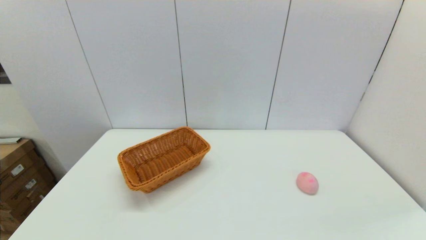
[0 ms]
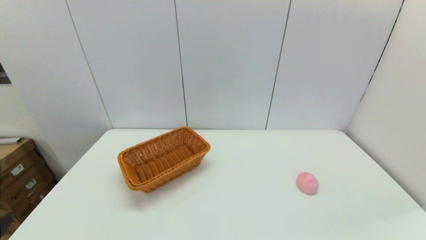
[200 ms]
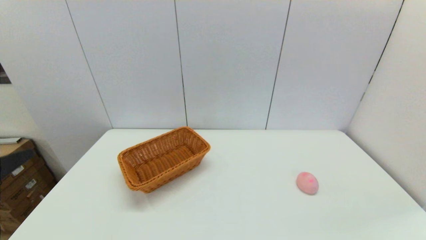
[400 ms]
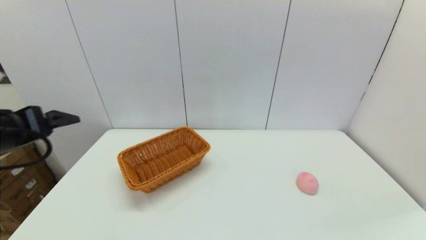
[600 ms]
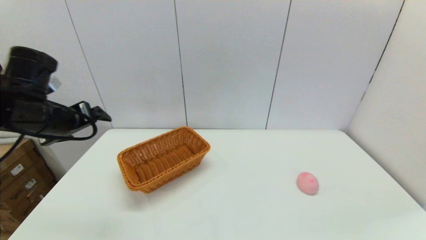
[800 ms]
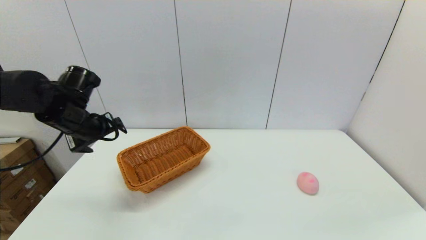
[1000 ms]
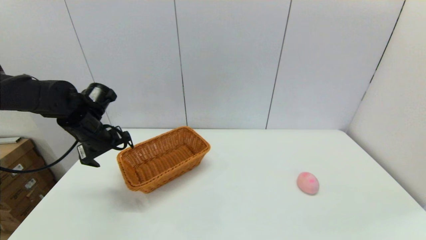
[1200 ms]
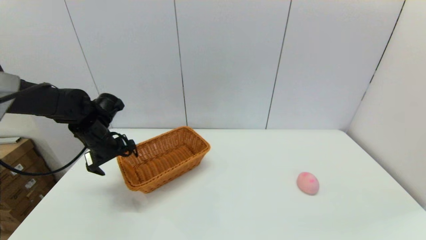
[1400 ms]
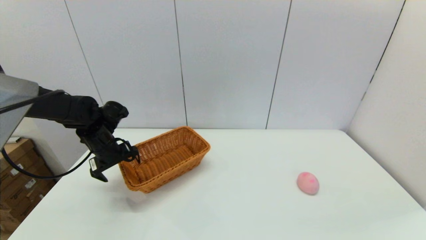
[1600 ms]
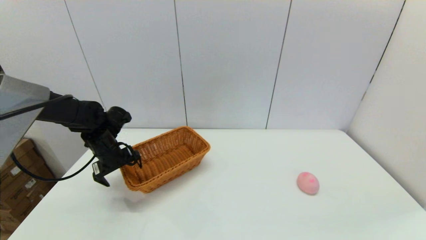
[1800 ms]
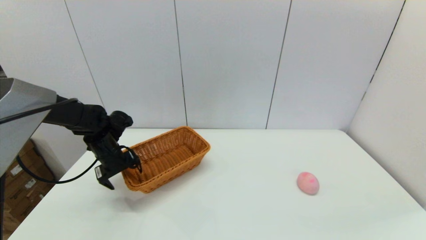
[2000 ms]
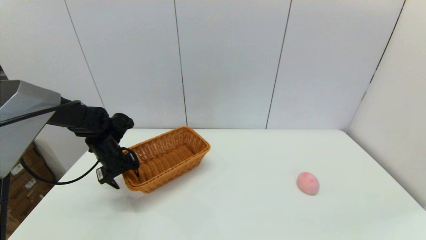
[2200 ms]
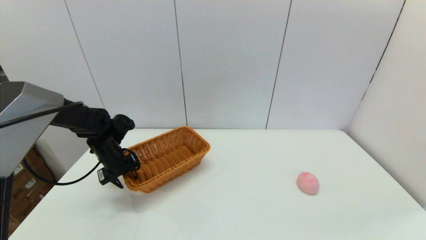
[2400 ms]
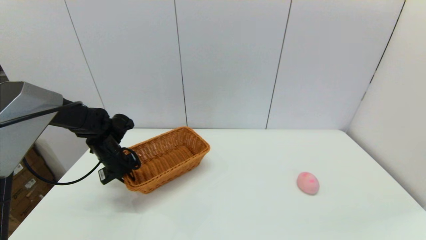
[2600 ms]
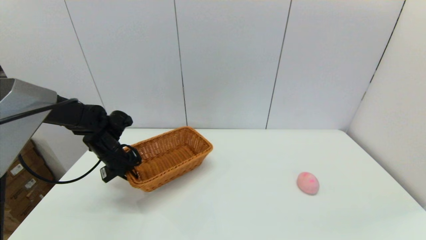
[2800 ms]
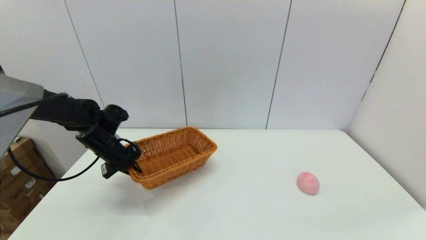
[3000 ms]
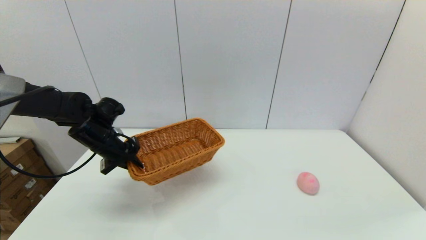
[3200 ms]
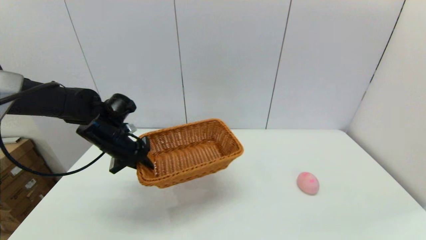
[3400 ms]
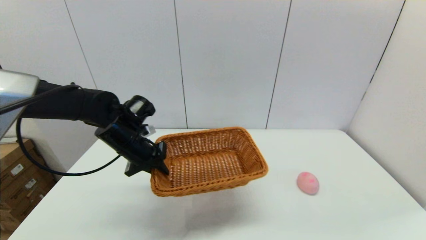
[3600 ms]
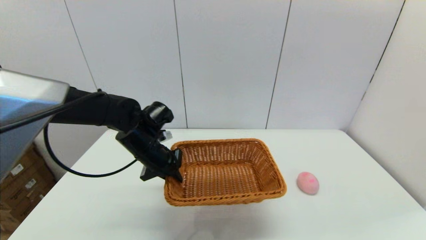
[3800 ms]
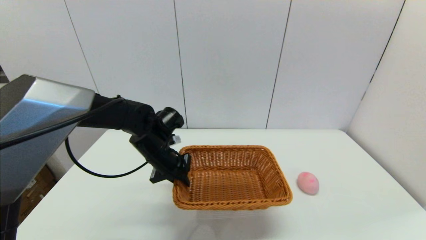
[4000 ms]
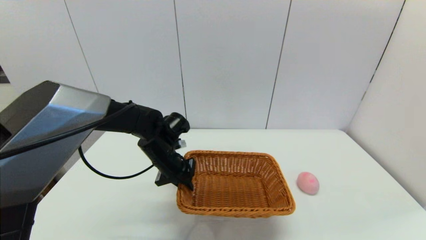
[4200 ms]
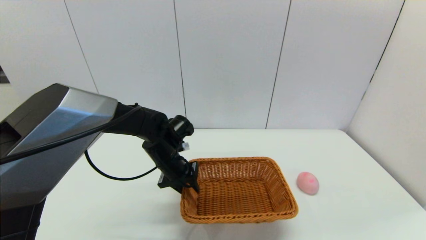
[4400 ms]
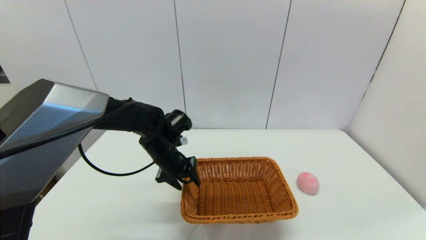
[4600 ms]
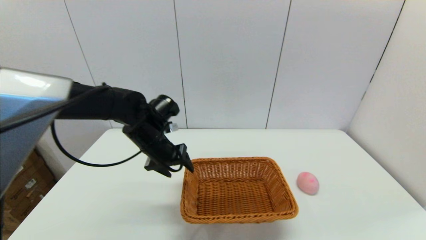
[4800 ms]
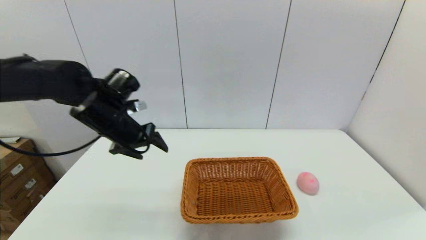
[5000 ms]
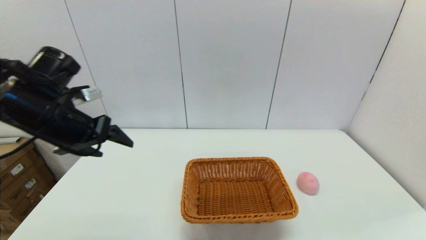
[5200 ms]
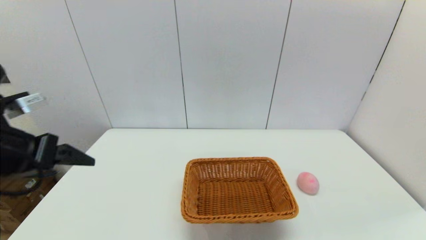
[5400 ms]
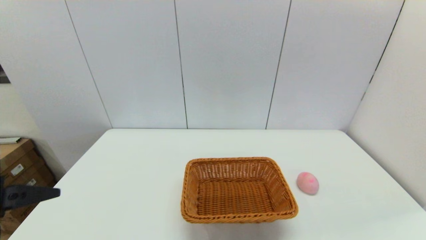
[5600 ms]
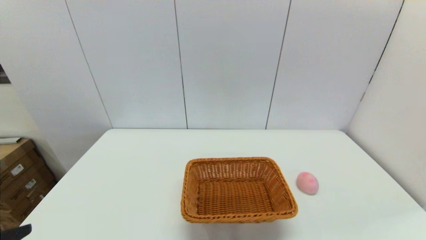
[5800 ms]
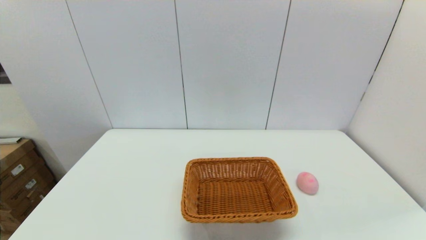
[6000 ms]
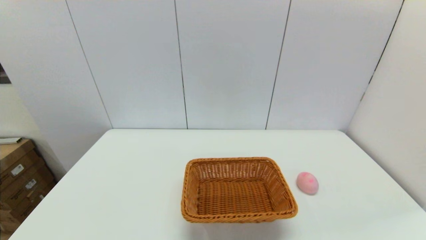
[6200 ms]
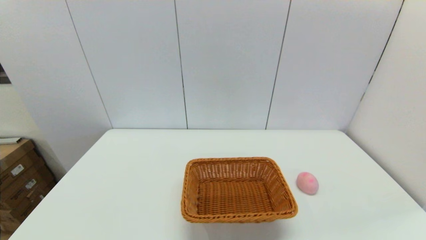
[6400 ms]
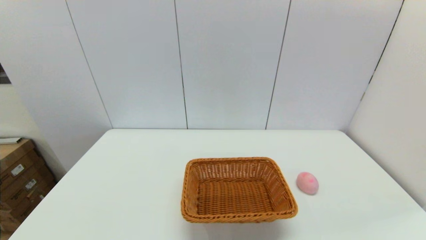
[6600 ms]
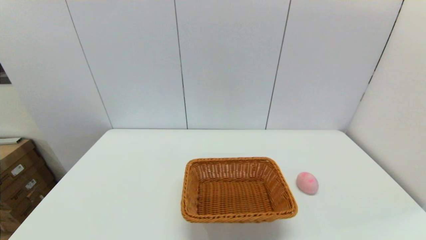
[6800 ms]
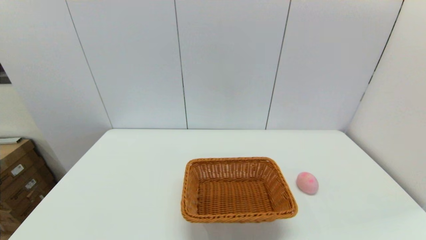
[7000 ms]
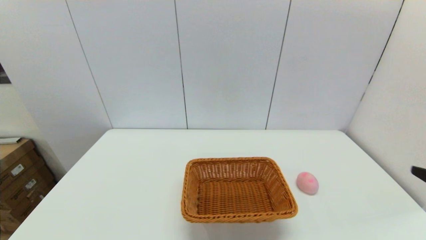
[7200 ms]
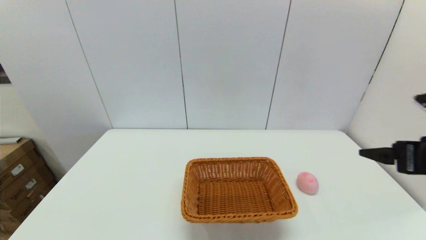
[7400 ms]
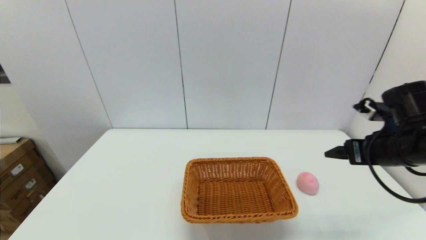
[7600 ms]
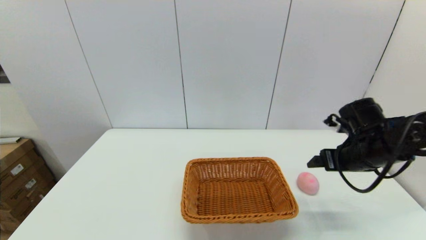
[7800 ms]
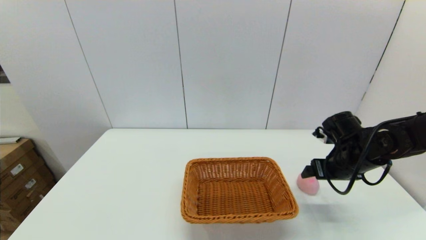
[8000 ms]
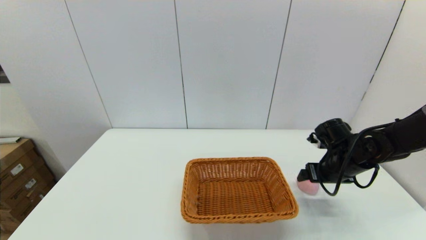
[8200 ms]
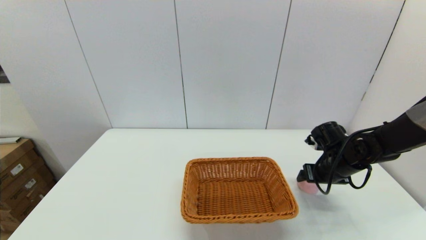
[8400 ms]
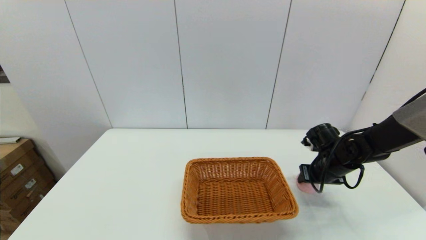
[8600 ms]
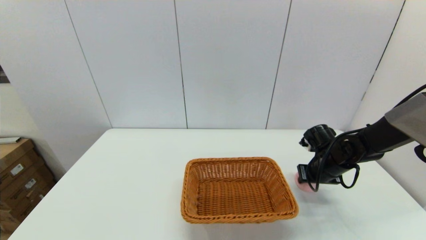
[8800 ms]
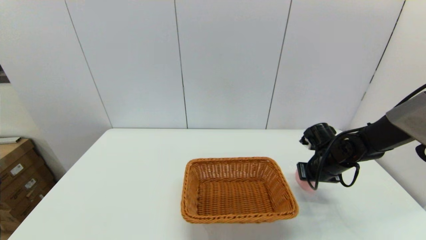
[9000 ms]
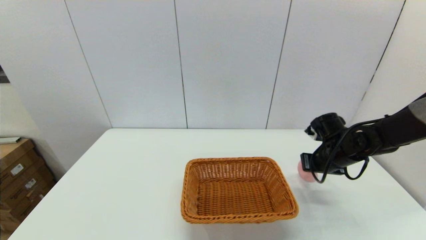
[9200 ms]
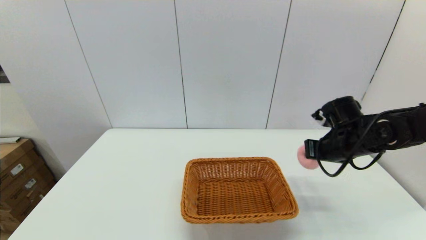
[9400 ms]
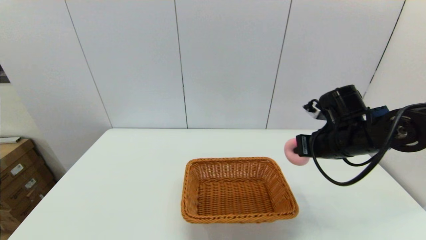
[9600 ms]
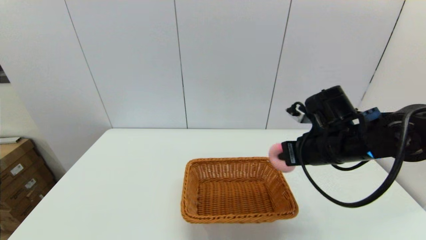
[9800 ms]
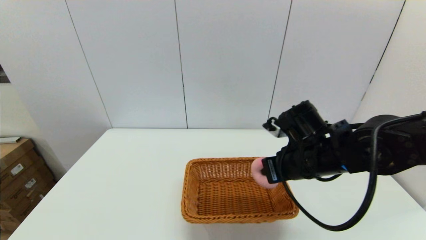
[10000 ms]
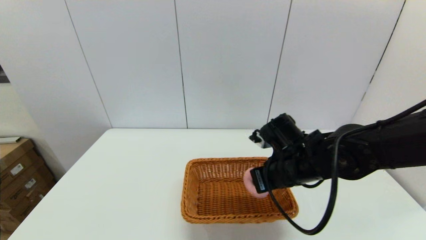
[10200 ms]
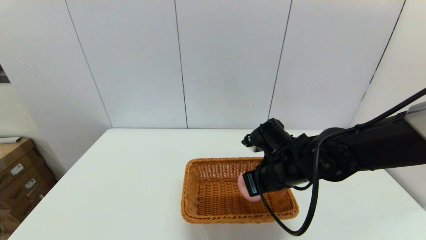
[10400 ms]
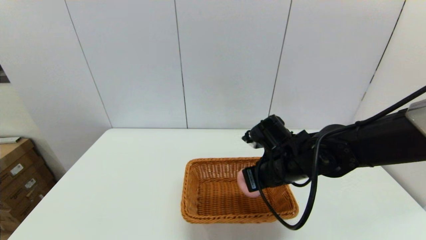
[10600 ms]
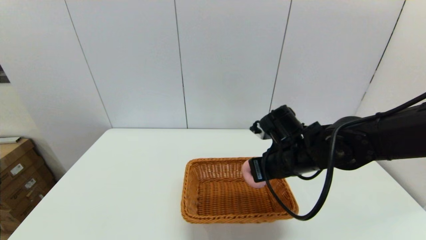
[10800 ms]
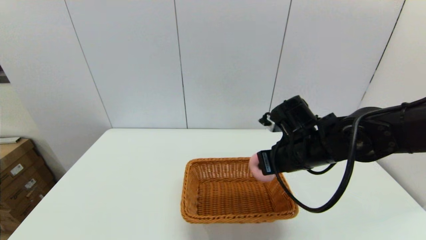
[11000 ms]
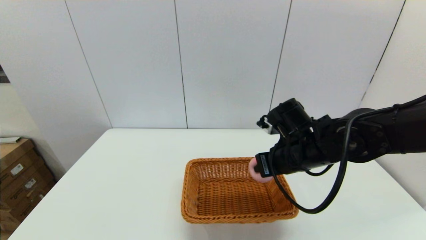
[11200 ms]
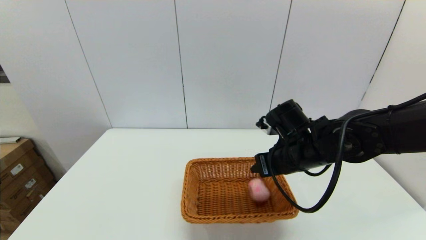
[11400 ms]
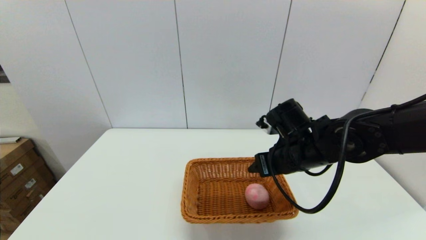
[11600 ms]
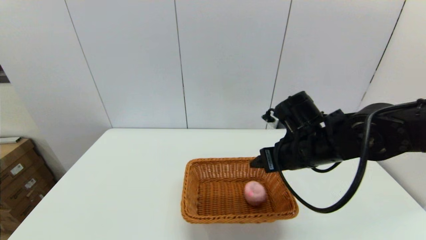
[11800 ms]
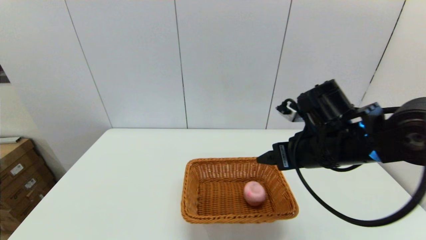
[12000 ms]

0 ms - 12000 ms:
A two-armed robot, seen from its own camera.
Step, 0 ms - 2400 ms: Grasp the light basket with the left gripper.
Step, 2800 ms - 4600 ms: Place the light basket on the middle of the table with the left gripper.
Step, 4800 ms - 8800 ms: Grasp the peach with the right gripper.
Step, 9200 ms - 11600 ms: Place the peach into the light basket with the right gripper.
0 ms - 1600 ms: The left gripper moves forward, about 40 cm.
1600 ms - 3000 ms: The left gripper closes.
3000 ms - 4400 ms: The left gripper is displaced to the right by roughly 15 cm.
4400 ms - 6000 ms: The left gripper moves backward and to the left, some 40 cm, and opens up.
6000 ms - 7600 ms: The right gripper is displaced forward by about 30 cm.
7600 ms - 9000 ms: The right gripper moves downward and forward, some 15 cm, and closes up.
9000 ms - 10400 ms: The right gripper moves to the left, backward and upward, about 20 cm.
10400 ms - 12000 ms: The right gripper shifts roughly 10 cm upward and to the right, and opens.

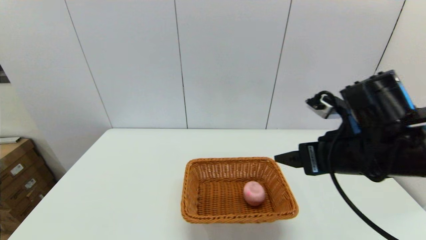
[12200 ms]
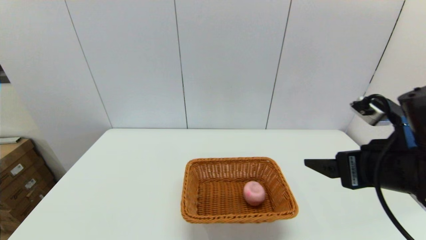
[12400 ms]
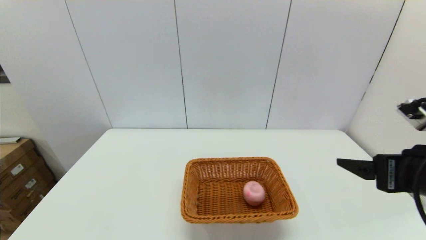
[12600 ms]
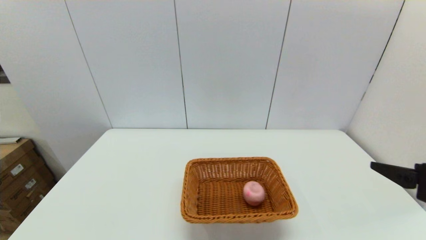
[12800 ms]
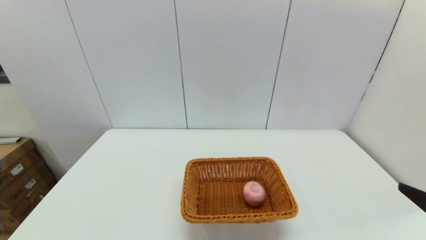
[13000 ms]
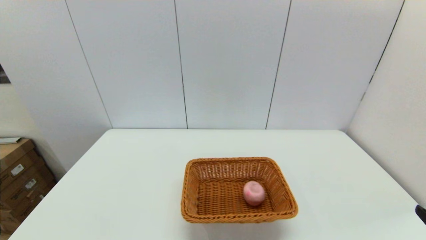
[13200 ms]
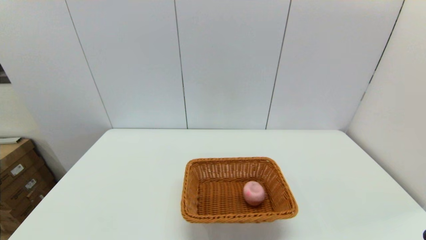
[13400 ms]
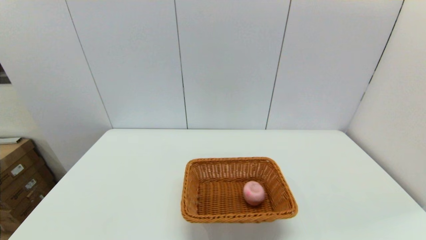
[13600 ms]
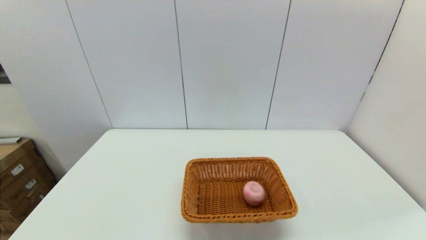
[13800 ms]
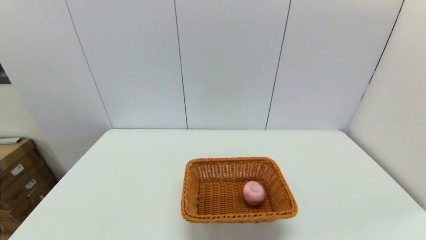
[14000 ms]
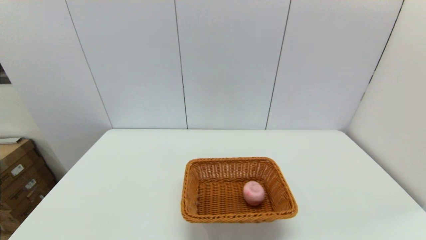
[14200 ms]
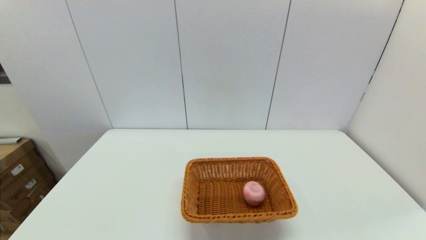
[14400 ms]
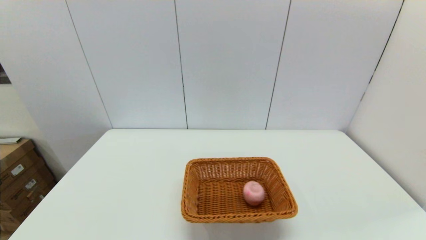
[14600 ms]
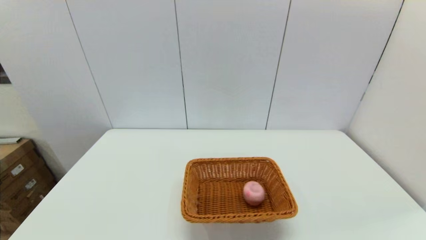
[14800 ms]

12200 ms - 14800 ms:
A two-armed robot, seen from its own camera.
12200 ms - 13400 ms: The right gripper heads backward, to the right and downward, covering about 25 cm.

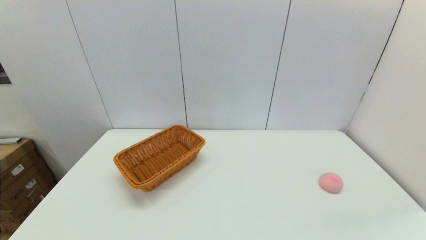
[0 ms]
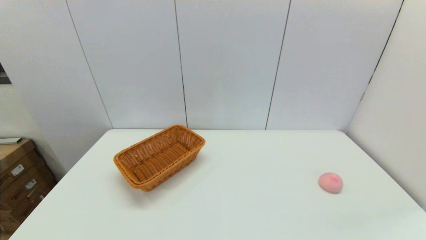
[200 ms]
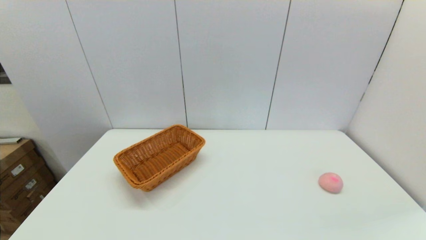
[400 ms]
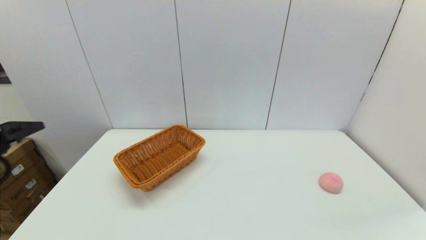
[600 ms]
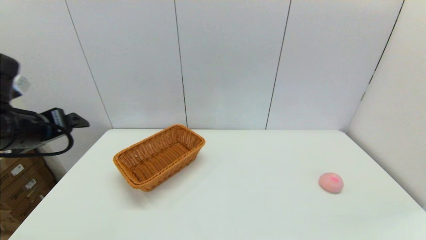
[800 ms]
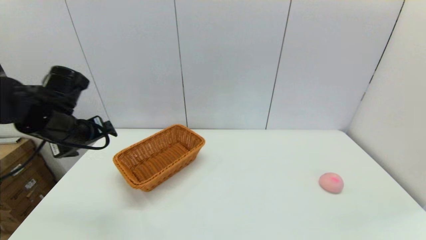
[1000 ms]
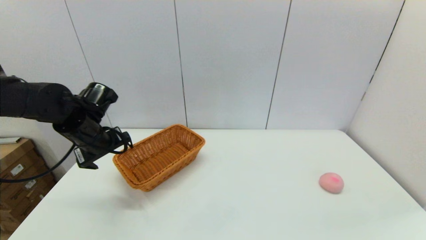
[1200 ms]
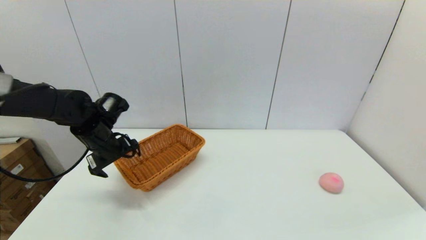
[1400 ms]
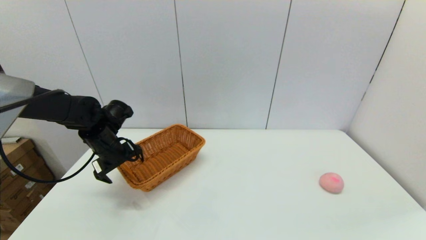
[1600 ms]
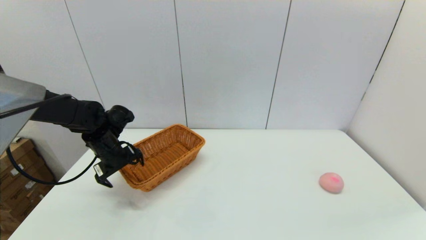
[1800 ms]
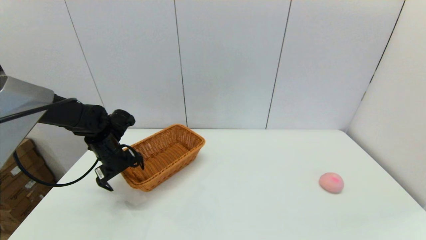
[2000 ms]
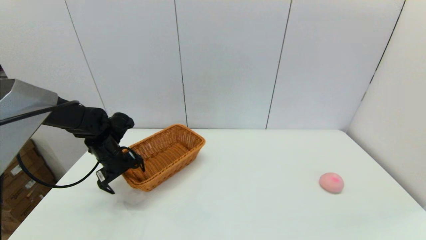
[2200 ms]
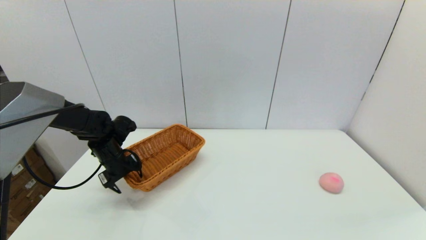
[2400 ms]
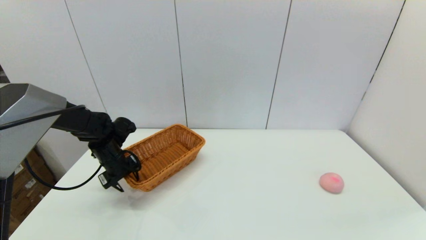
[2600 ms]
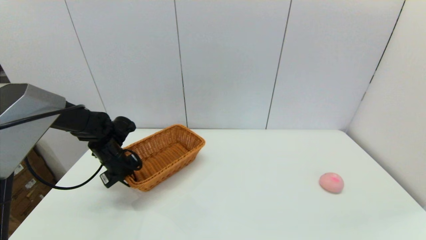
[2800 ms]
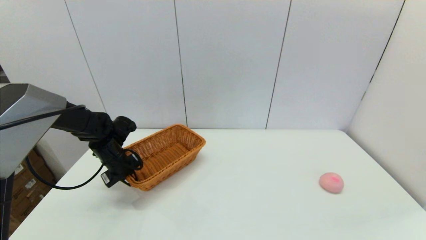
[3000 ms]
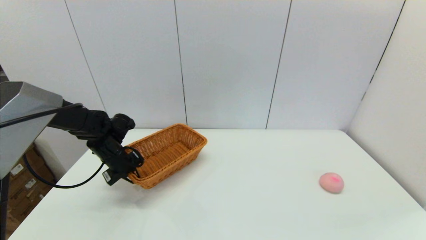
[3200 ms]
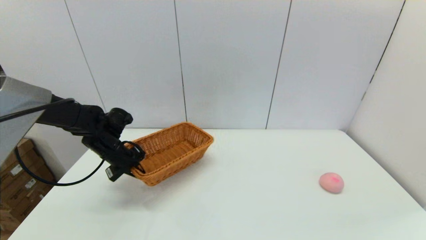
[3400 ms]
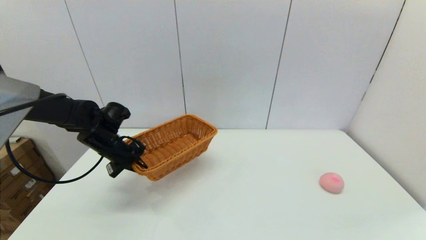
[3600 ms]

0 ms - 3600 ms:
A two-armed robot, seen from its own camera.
Step, 0 ms - 2600 ms: Grasp the light basket with the left gripper.
0 ms - 1800 ms: The left gripper moves forward, roughly 40 cm.
1800 ms - 3600 ms: The left gripper closes its fingers.
